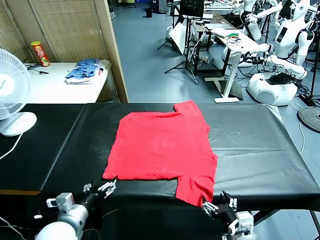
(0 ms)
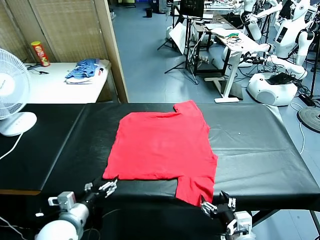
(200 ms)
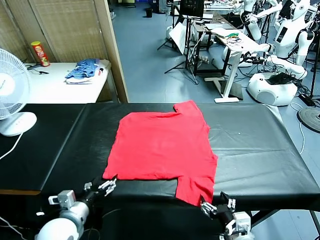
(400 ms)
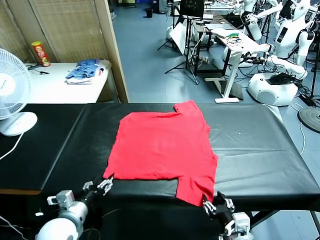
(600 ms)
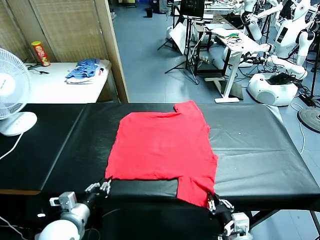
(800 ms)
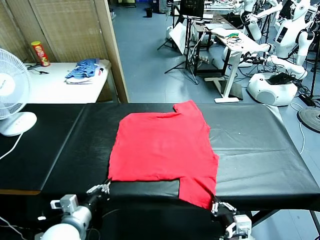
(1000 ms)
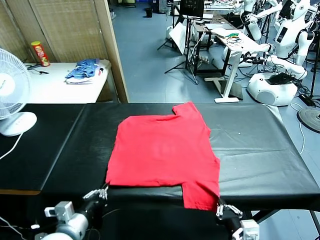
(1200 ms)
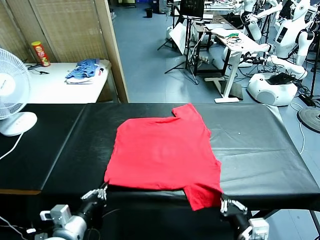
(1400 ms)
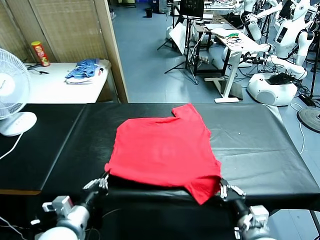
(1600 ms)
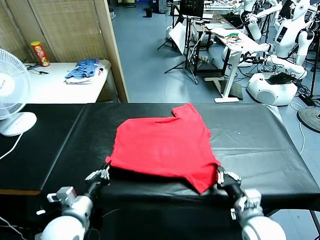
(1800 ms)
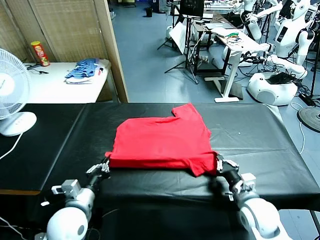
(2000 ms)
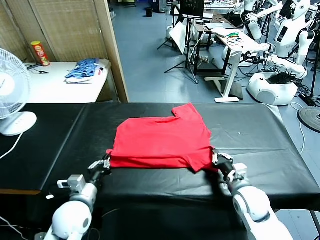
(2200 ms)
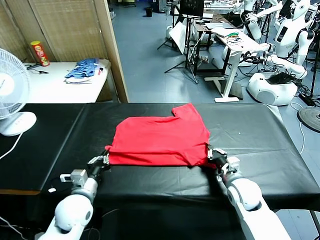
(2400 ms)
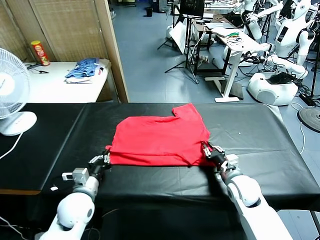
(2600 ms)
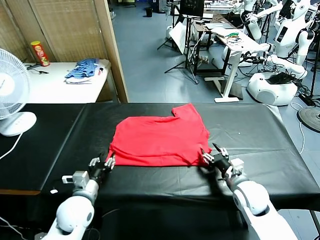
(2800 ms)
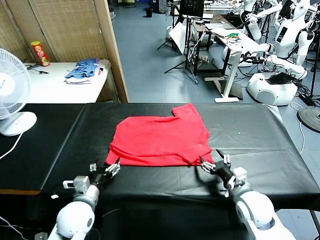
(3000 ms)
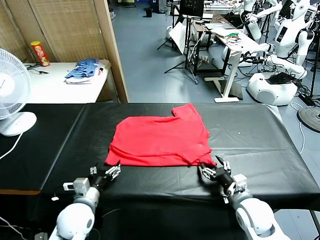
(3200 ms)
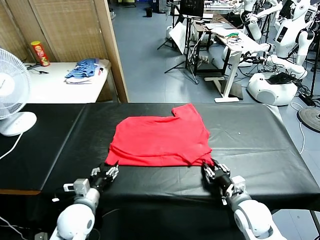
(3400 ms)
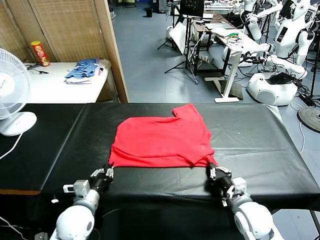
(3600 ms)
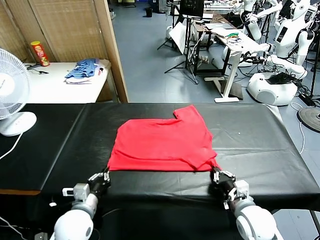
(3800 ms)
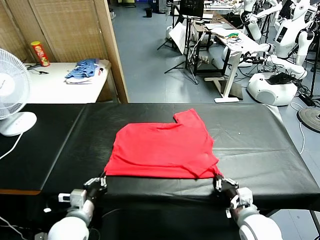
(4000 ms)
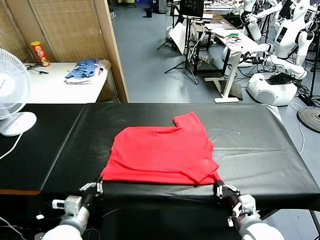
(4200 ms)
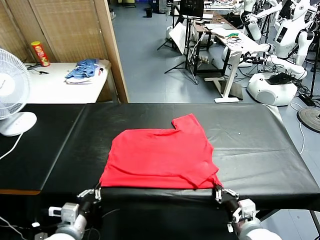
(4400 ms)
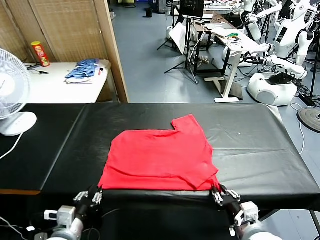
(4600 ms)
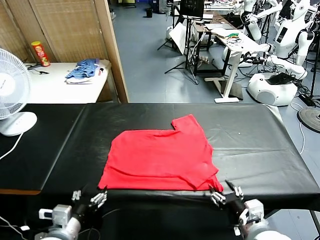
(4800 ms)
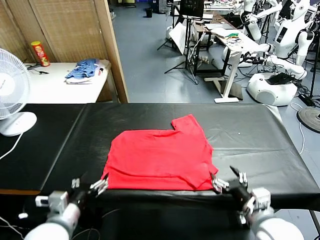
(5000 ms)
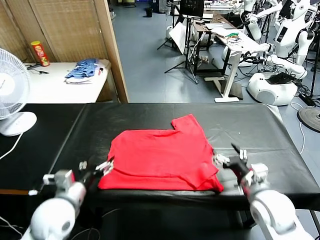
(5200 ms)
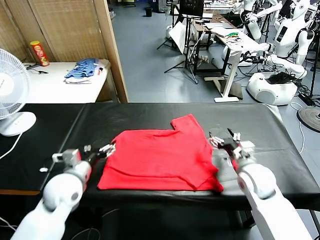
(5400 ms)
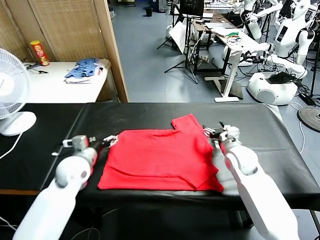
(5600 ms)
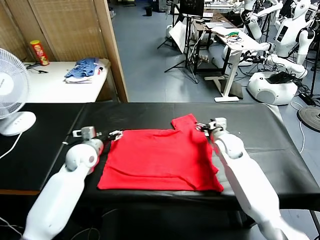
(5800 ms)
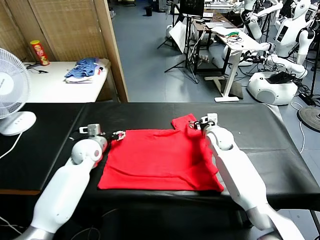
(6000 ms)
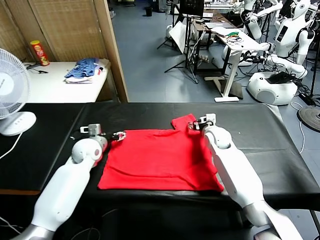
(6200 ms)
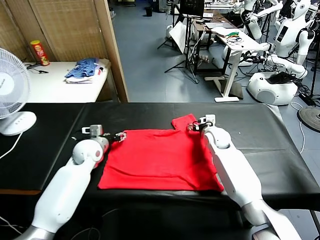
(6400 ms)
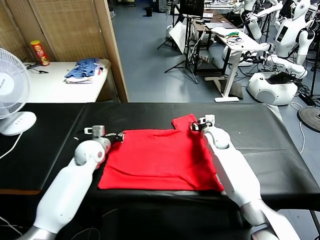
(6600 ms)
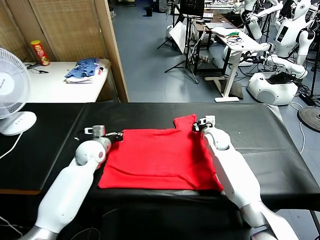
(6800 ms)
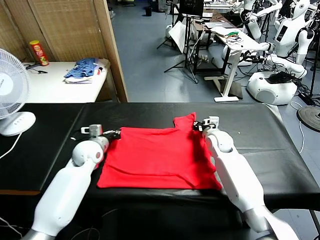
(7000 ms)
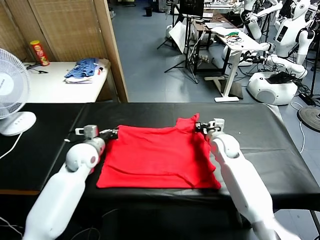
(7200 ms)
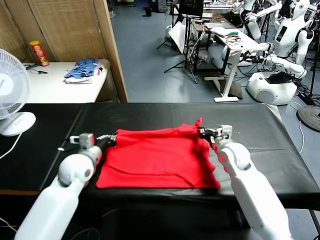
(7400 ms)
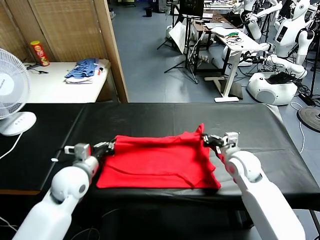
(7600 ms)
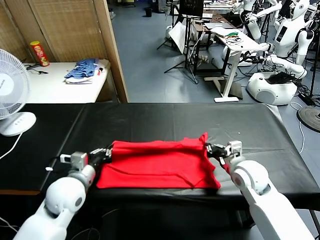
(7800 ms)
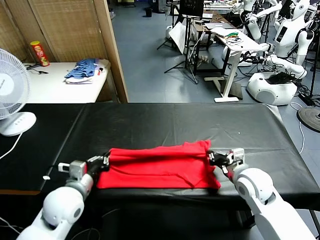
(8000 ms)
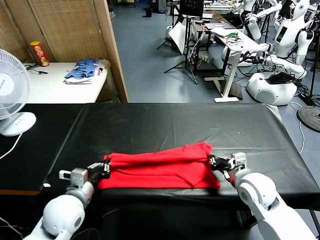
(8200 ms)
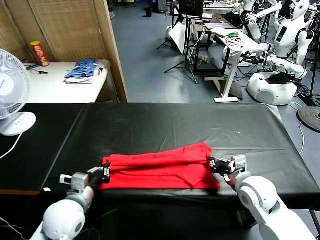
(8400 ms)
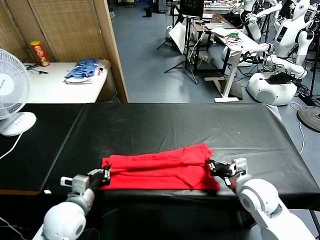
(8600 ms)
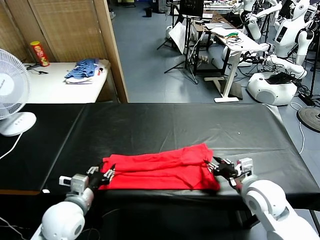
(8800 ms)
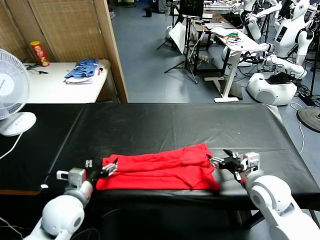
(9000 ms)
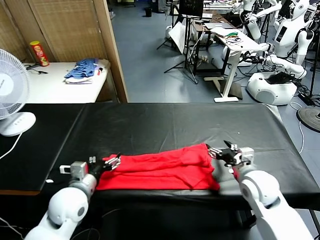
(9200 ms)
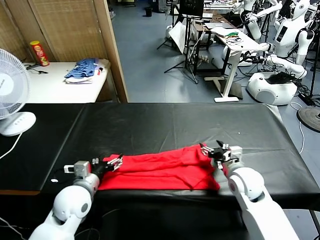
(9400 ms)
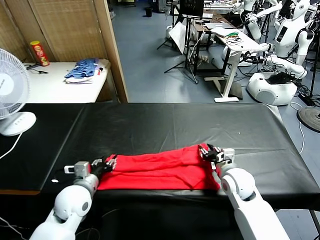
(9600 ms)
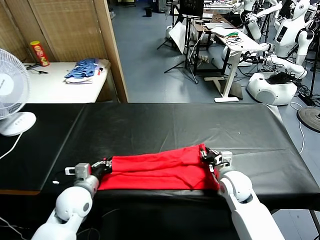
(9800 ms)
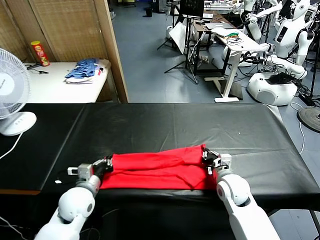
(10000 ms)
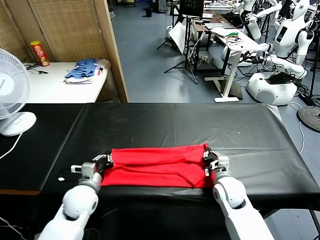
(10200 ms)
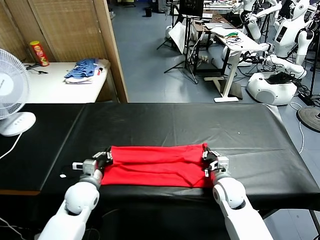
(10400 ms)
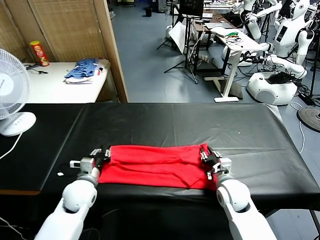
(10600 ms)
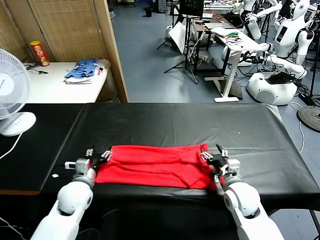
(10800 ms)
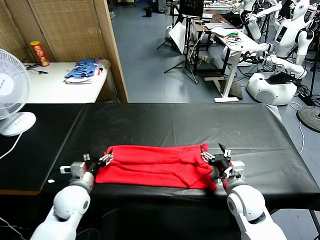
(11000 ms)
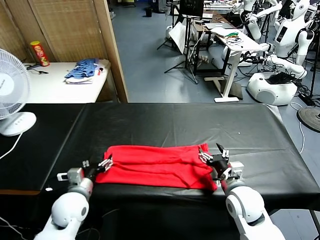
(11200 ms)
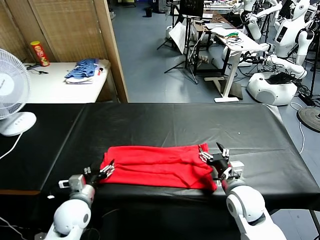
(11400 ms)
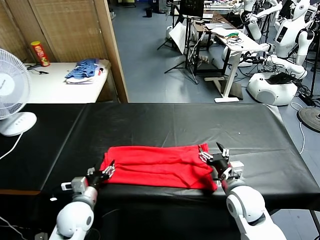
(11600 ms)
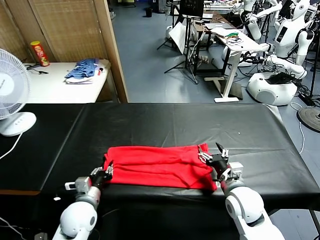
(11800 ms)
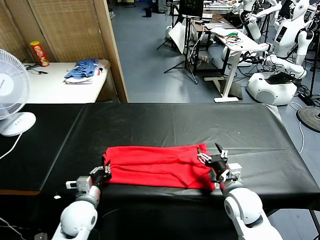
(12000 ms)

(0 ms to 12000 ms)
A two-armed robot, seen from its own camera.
Task of the whole recording: fold and organize the clothes.
Step, 0 ms - 800 ms: use both grippers simultaneously to clamp the lower edge of the clothing fabric.
Step, 1000 ms - 2800 ms: use both grippers to drag the lower edge of the fabric forward and fold it over the upper edge.
Step, 3000 ms - 4800 ms: Drag the clothes downward with both gripper.
Step, 5000 ms - 6600 ms: use both grippers simultaneously to clamp the upper edge of the clothing fabric.
Step, 7000 ms - 8800 ms: use both grippers to drag the upper edge of the fabric backward and fold it over the lower edge.
Step, 9000 ms - 12000 ms: use the left gripper to clamp the left edge of the fabric.
1600 ms - 3000 ms: The right gripper goes forward and returns, roughly 10 cm each way, and opens up. Meanwhile the left gripper is displaced forward and downward by some 10 cm, and opens up.
3000 ms - 4400 ms: Both grippers move backward, approximately 10 cm. The right gripper closes. The left gripper closes.
4400 ms - 6000 ms: The grippers both shift forward by about 35 cm. The left gripper opens up. Meanwhile the right gripper opens.
6000 ms - 7600 ms: Both grippers move backward, approximately 15 cm. The left gripper closes up. Meanwhile the right gripper closes up.
7600 ms - 9000 ms: The right gripper opens up. Meanwhile the left gripper heads backward, covering some 5 cm, and opens its fingers.
9000 ms - 10400 ms: The left gripper shifts roughly 10 cm downward and forward, and closes, while the right gripper heads downward and to the left, covering about 10 cm, and closes.
10400 ms - 12000 ms: The two grippers go about 5 cm backward. The right gripper opens, while the left gripper opens, then closes again.

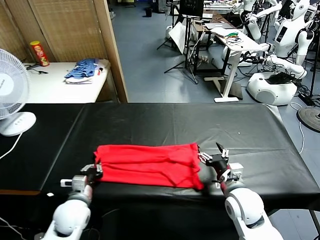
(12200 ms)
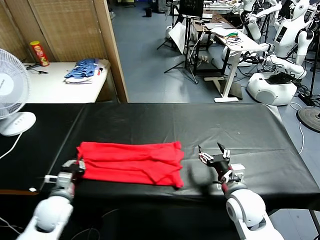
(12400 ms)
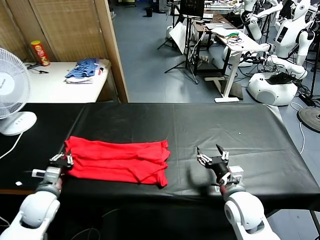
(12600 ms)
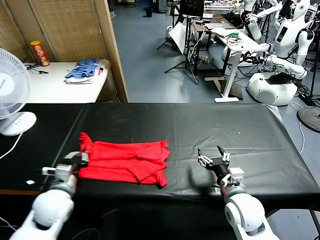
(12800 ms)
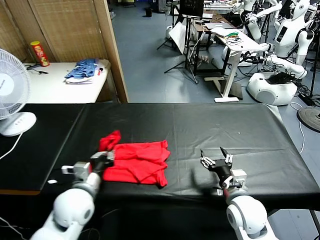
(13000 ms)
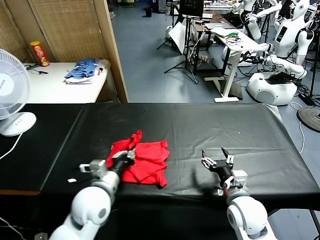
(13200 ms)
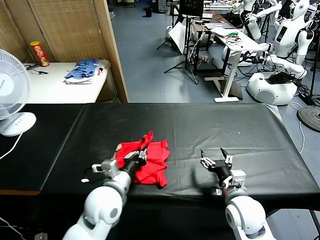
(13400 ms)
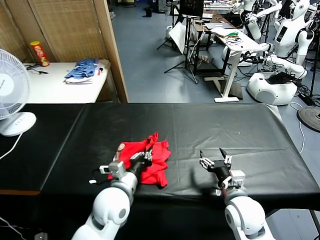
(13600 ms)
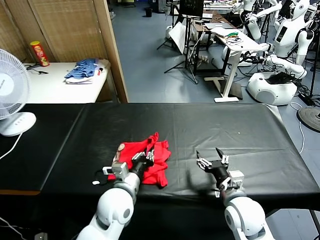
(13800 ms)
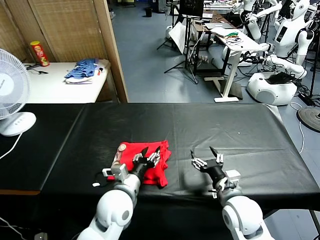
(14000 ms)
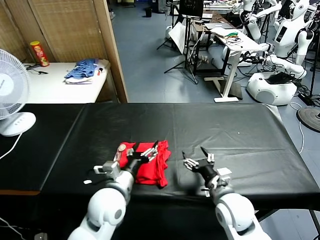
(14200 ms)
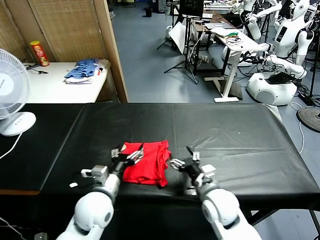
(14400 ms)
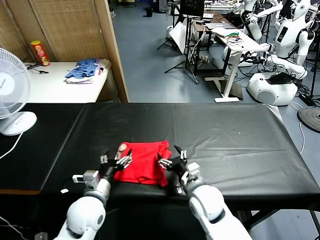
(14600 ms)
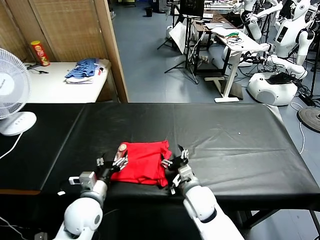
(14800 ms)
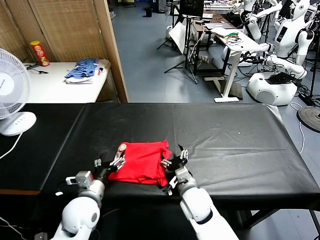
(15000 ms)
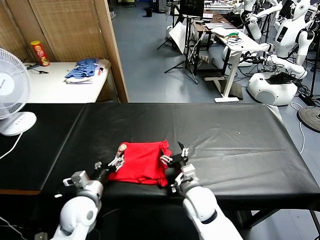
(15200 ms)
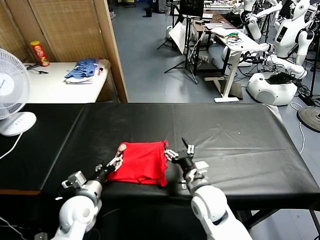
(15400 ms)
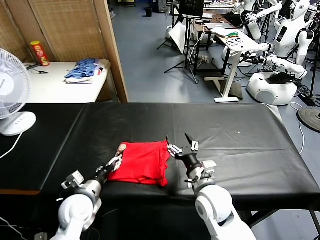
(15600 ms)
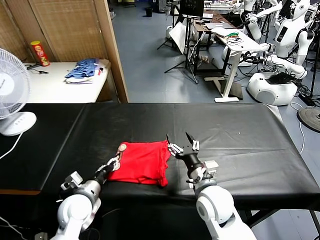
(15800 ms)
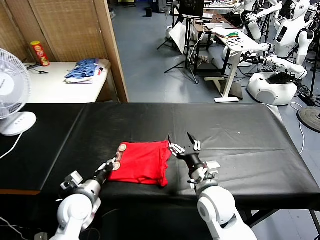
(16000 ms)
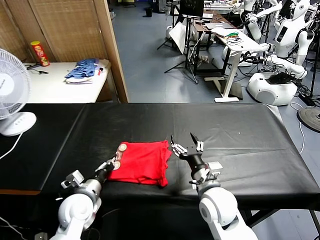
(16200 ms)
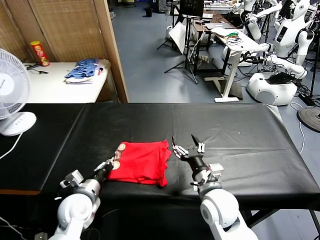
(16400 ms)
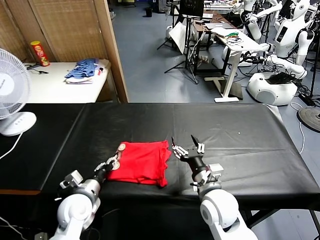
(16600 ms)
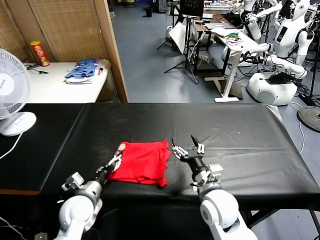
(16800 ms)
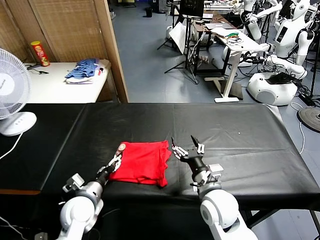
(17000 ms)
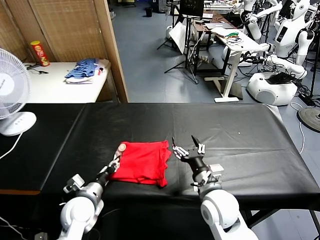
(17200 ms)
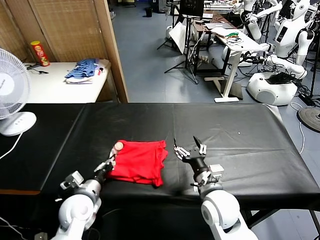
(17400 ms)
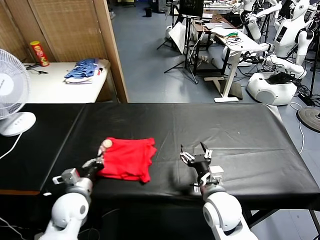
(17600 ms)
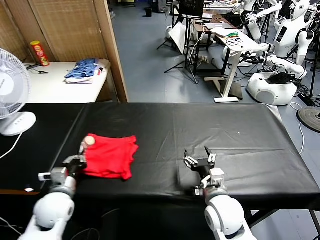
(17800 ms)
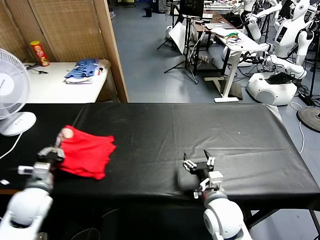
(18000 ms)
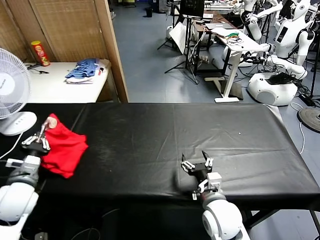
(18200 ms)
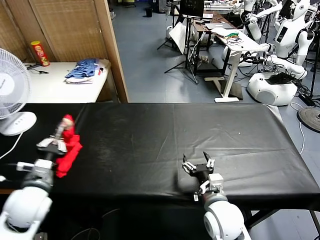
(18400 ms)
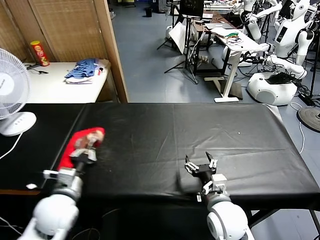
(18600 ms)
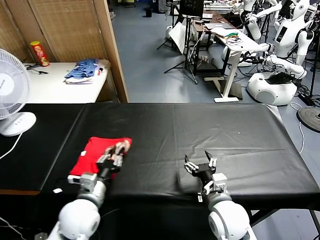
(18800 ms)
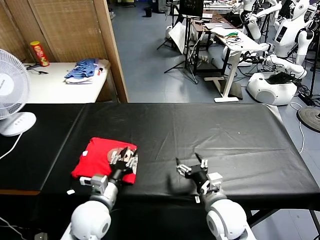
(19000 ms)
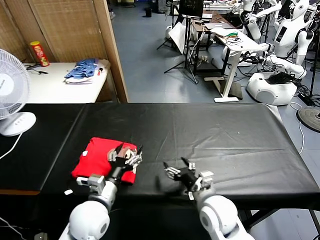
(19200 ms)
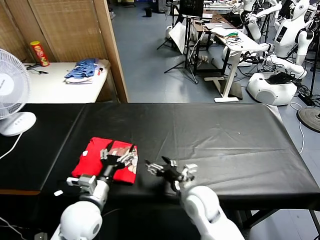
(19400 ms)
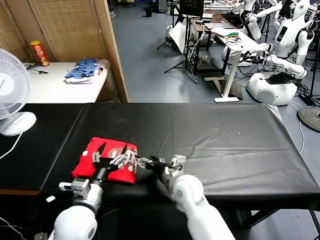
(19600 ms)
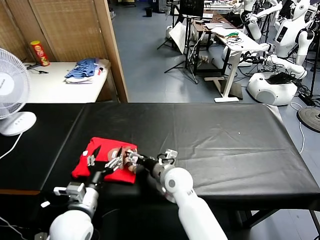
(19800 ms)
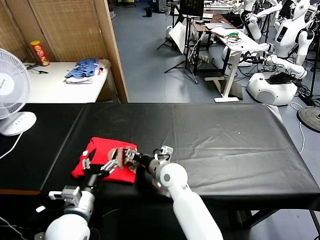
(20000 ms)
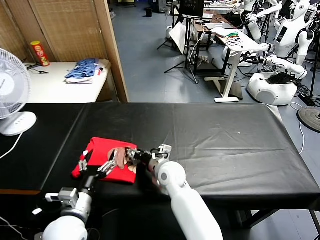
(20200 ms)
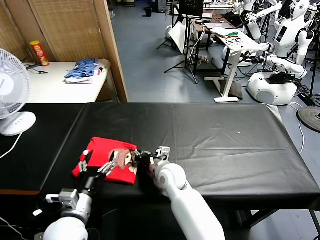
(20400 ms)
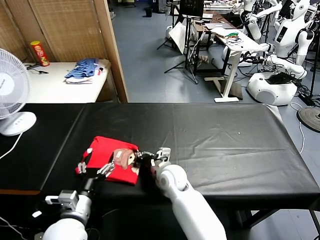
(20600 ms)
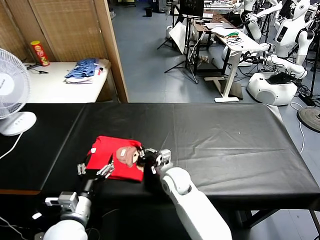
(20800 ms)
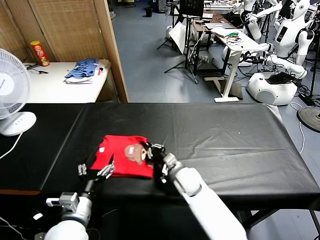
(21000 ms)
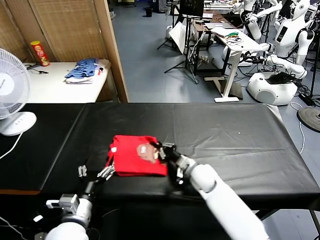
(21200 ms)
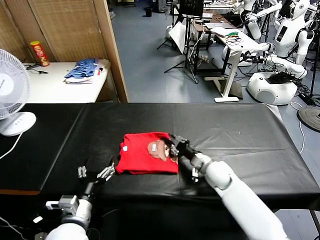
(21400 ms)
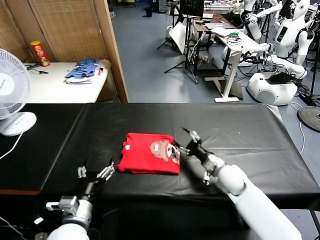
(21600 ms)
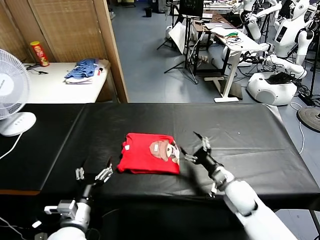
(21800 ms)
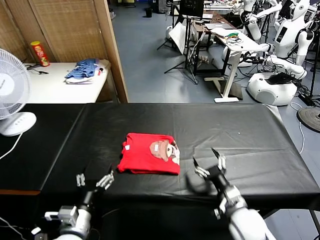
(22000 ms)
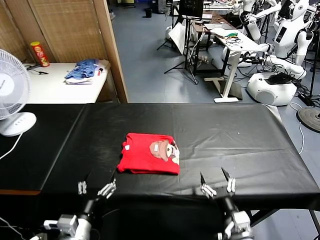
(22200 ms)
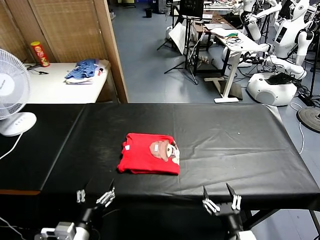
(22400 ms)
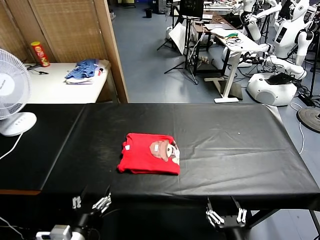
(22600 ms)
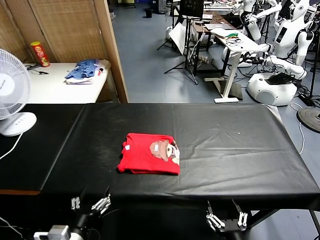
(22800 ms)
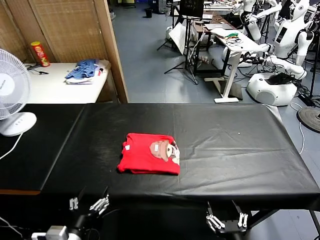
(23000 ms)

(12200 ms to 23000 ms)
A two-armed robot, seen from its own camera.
Task of the whole recording: fold and organize the clothes.
Step, 12200 ms - 14000 ms: use the left gripper to drag the left edge of the fabric to the left and folds it over the right edge.
Step, 14200 ms - 19000 ms: Flip the folded clothes over with left gripper.
Step, 19200 ms - 21600 ms: Drag the clothes to the center of the table.
12200 ms - 13800 ms: The left gripper travels to the right and upward by approximately 15 cm.
13800 ms - 15200 ms: Both grippers travel together to the left, roughly 10 cm. The left gripper opens.
15200 ms - 16800 ms: The right gripper ends up some 5 cm from where it was. Meanwhile the left gripper closes, then reopens.
16800 ms - 18400 ms: The left gripper shifts approximately 15 cm upward and to the left, and closes up.
18400 ms - 20000 ms: The left gripper travels to the right and backward by some 15 cm, and opens its fingers. The right gripper heads forward and to the left, covering approximately 20 cm.
20000 ms - 21400 ms: The right gripper travels to the right by roughly 15 cm, and closes its fingers.
21400 ms - 23000 ms: The left gripper goes about 10 cm backward; the right gripper moves backward, some 35 cm, and opens its fingers.
